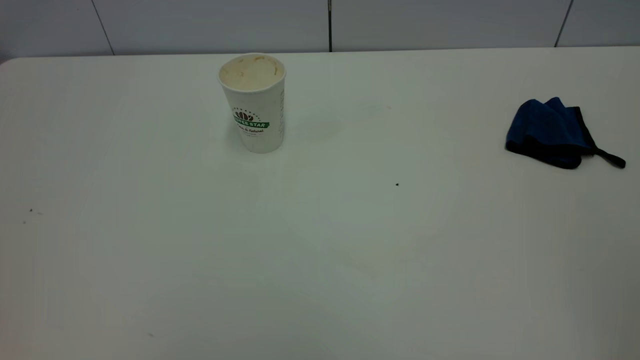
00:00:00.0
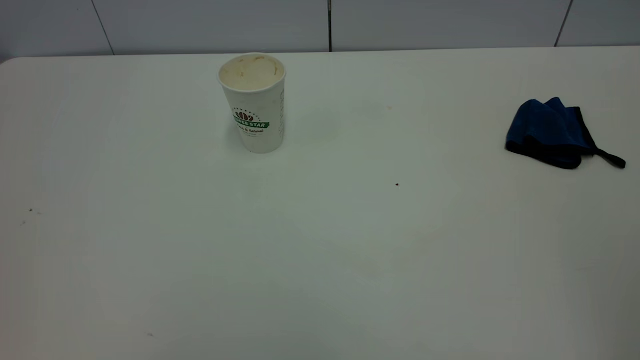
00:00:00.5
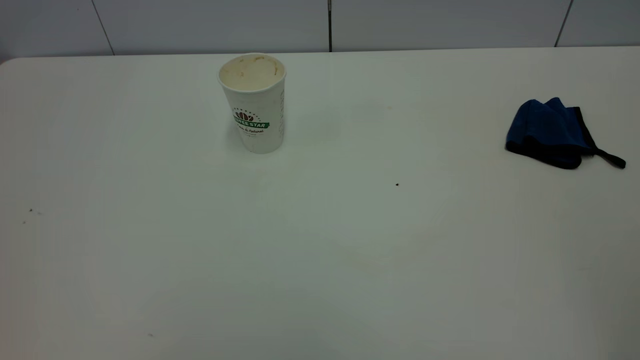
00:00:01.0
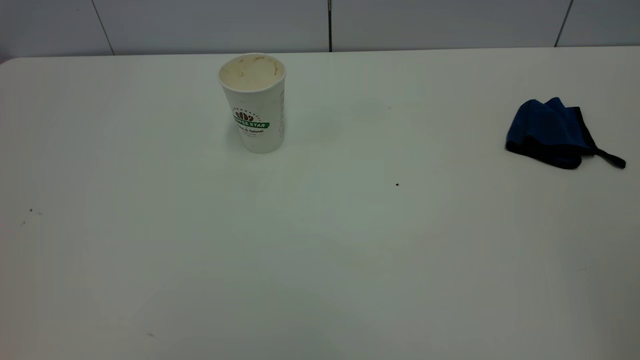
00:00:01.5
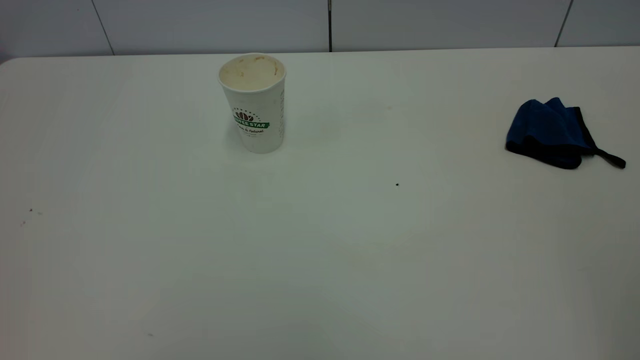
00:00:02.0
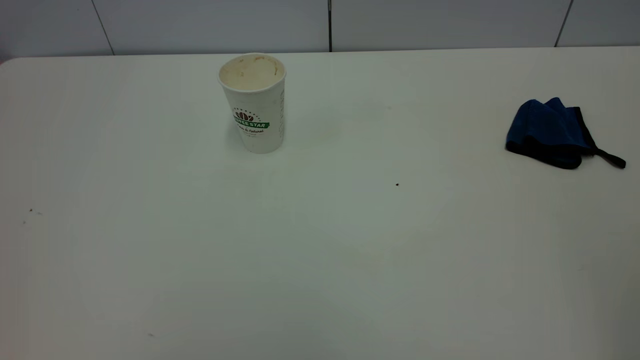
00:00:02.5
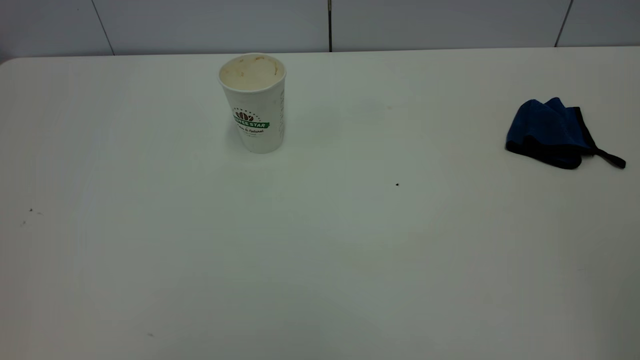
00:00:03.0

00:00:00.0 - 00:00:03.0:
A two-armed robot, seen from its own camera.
Task of the whole recording: the left gripper pick up the fallen cup and place it upright, the right gripper grasp the blue rag and wipe the tea stain on the table, the right gripper put the blue rag back in its original position.
00:00:01.5 - 00:00:03.0: Both grippers stay about where they are.
